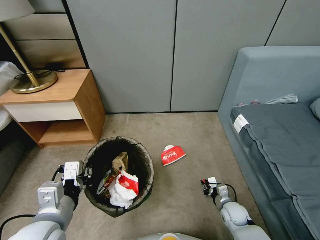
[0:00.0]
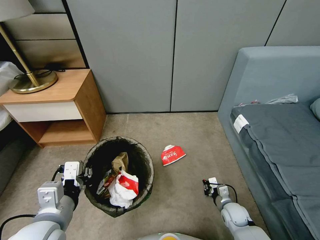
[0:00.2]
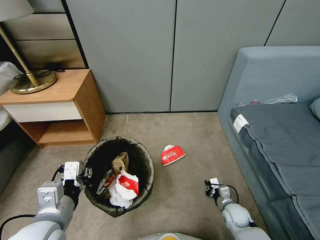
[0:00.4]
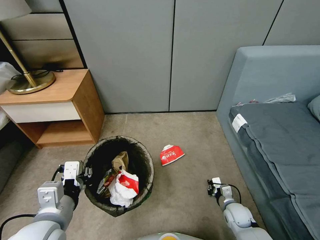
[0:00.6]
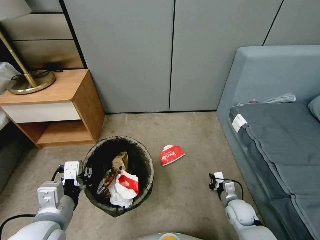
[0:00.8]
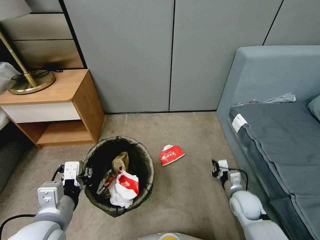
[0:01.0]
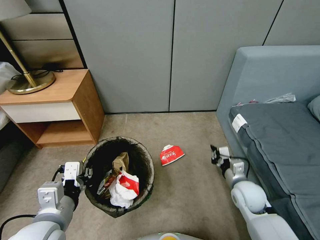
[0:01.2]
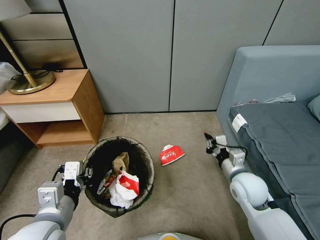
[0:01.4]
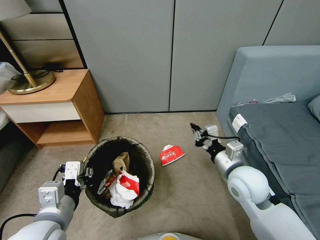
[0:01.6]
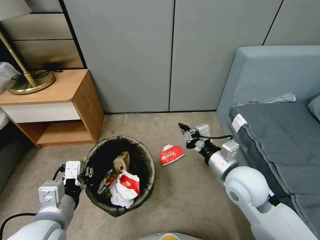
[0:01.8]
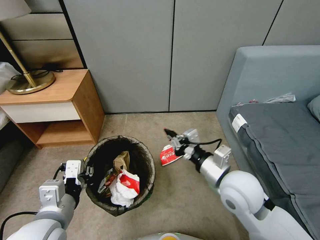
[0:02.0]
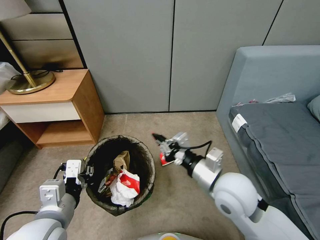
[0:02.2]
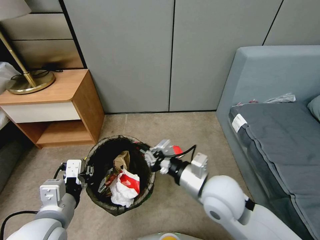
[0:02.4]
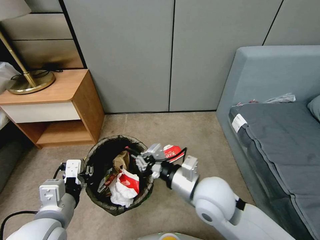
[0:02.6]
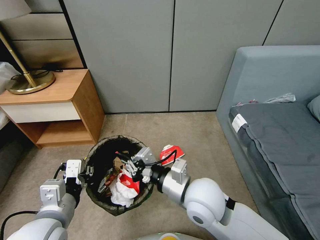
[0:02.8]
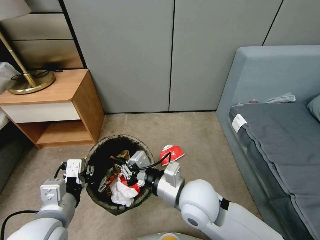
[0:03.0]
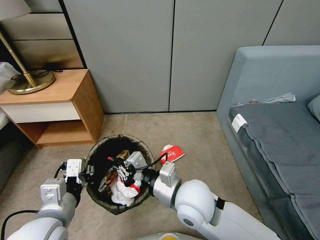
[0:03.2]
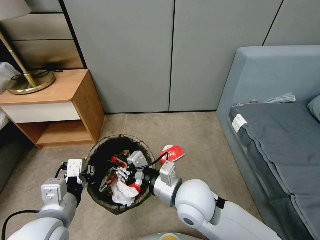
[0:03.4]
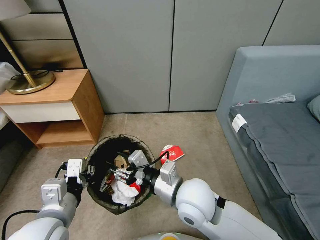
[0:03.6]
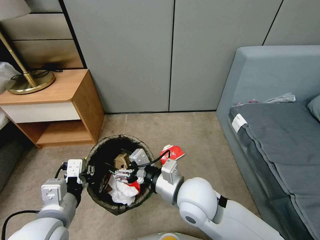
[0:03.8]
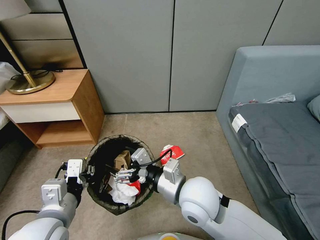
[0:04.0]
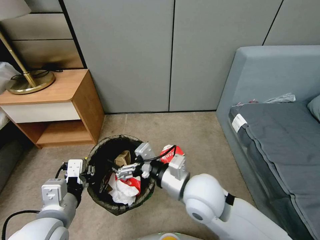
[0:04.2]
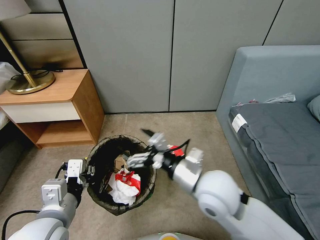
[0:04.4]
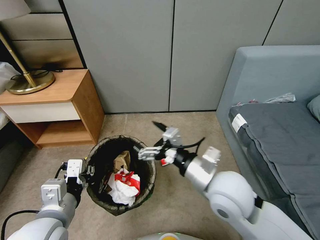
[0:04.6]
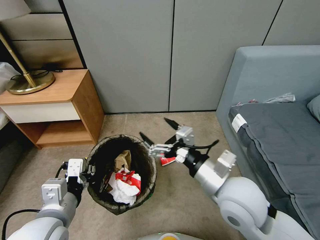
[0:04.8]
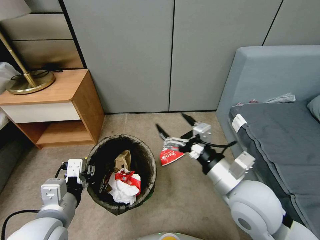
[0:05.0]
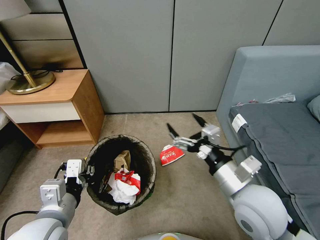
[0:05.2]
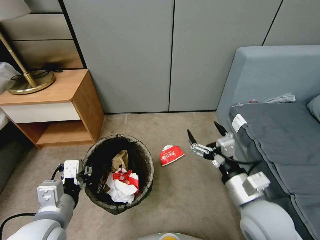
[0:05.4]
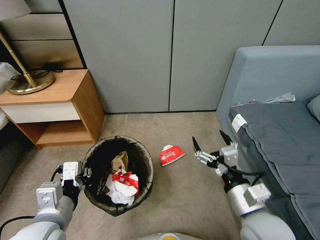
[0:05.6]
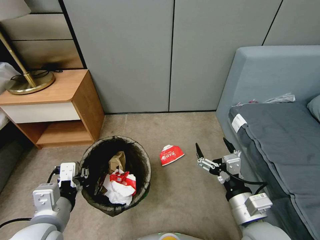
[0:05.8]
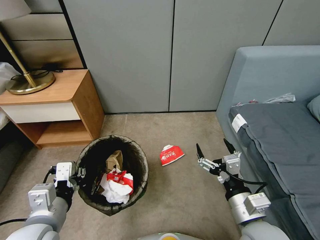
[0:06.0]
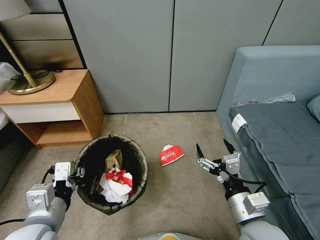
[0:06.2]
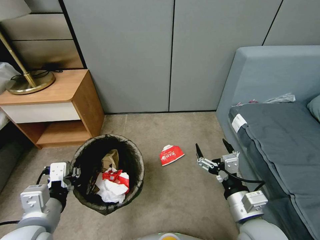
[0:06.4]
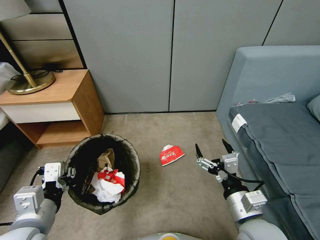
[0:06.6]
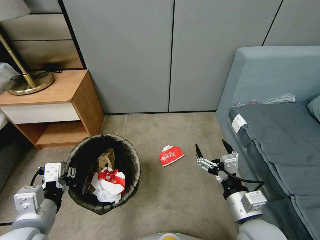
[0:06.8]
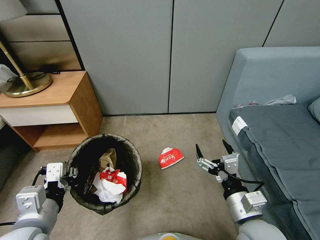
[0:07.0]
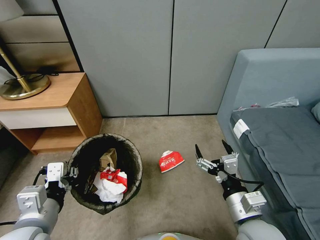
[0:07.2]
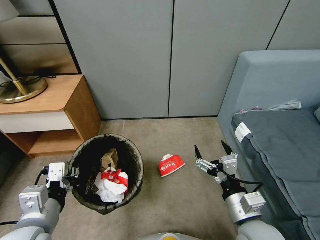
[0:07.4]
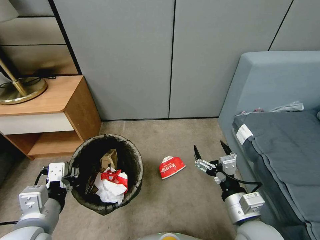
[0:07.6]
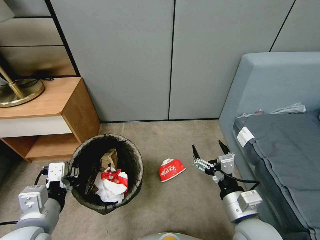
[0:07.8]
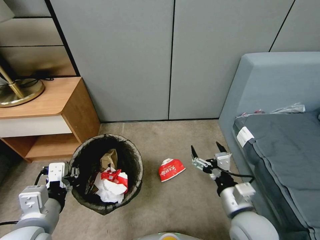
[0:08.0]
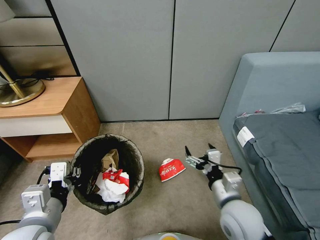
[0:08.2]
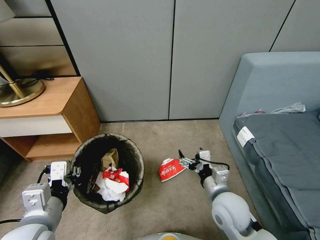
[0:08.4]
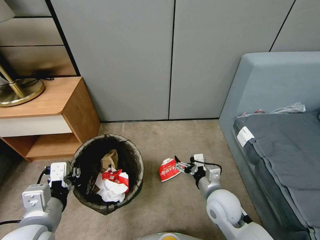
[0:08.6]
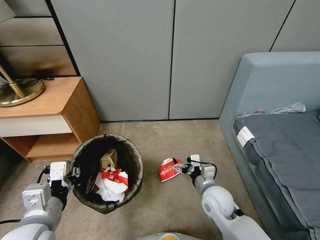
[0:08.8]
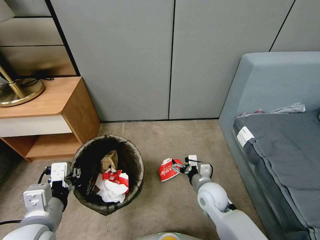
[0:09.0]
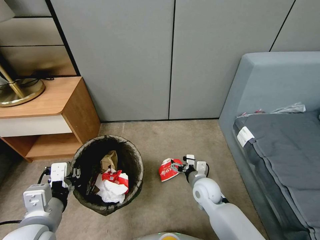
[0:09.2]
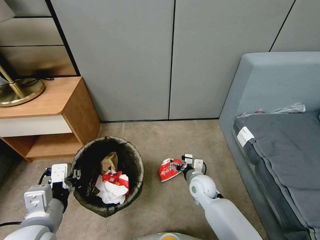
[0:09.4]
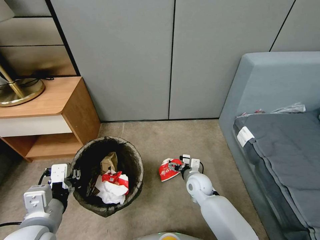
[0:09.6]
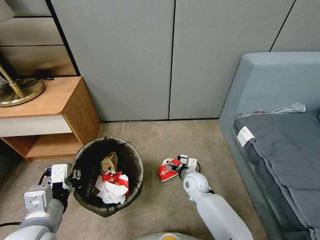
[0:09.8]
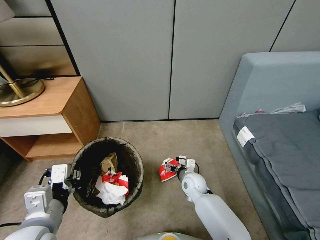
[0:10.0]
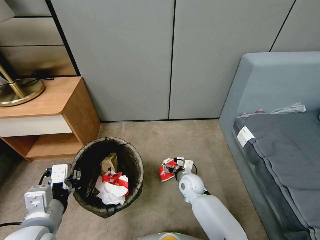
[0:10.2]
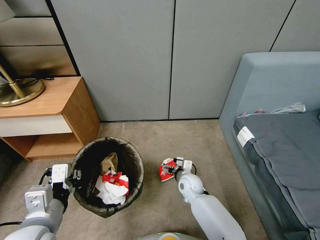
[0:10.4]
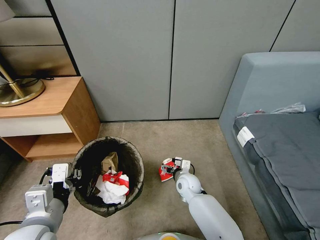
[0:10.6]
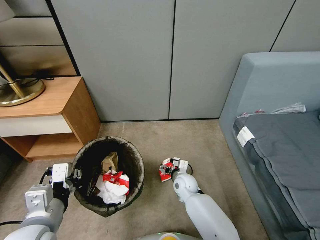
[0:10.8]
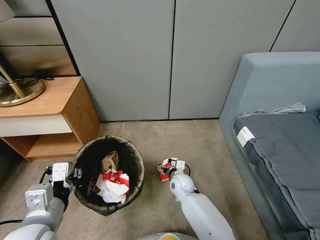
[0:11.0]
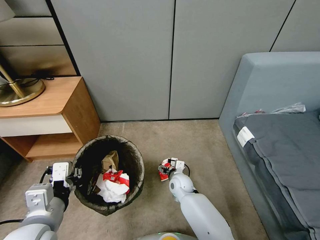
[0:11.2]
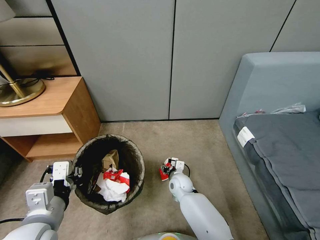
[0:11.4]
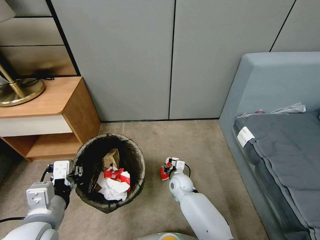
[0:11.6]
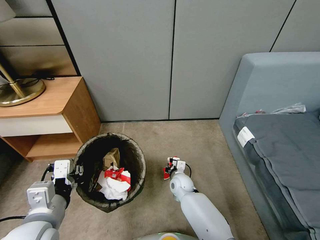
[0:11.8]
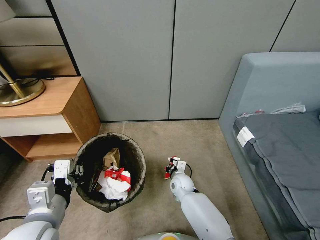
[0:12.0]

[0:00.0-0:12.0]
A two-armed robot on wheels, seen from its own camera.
Task of the whole recording: Pick up the trash bin, then pick up the garbage from the floor and place it into the trash bin.
0:00.0 to 0:01.6: The right gripper heads upward, covering roughly 30 cm.
0:01.6 to 0:03.0: The right gripper heads to the left, covering some 15 cm.
0:03.0 to 0:04.4: The right gripper opens.
0:04.4 to 0:06.0: The right gripper goes roughly 15 cm to the right, backward and downward.
0:07.6 to 0:09.0: The right gripper is displaced forward and downward by approximately 20 cm.
0:09.0 to 0:10.4: The right gripper heads downward, forward and to the left, covering some 10 cm.
0:10.4 to 0:12.0: The right gripper closes.

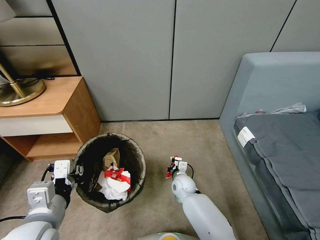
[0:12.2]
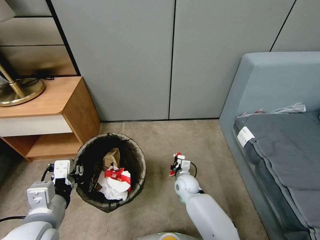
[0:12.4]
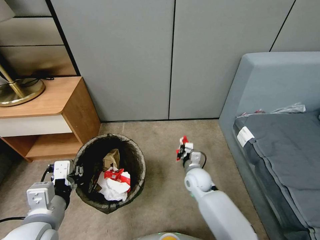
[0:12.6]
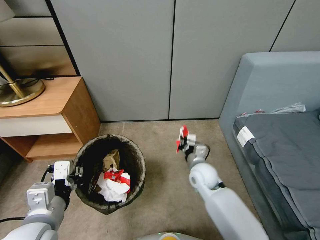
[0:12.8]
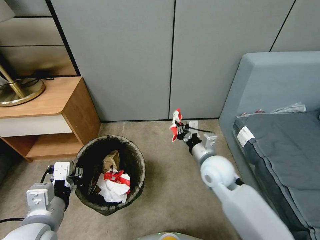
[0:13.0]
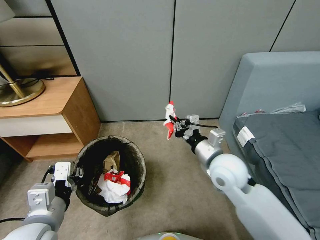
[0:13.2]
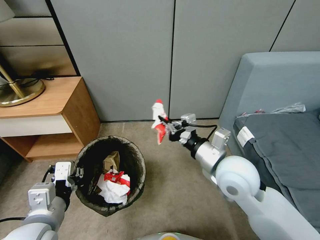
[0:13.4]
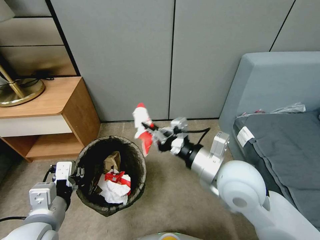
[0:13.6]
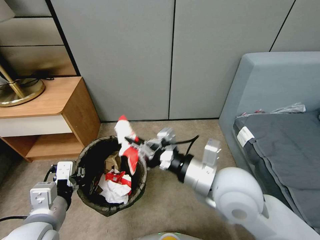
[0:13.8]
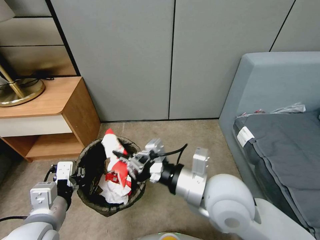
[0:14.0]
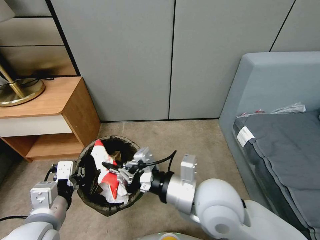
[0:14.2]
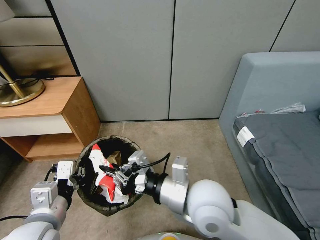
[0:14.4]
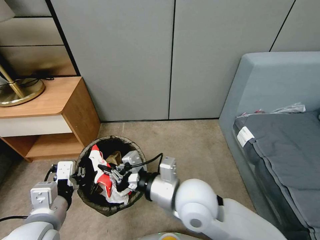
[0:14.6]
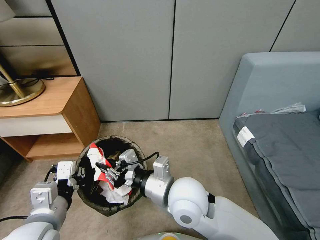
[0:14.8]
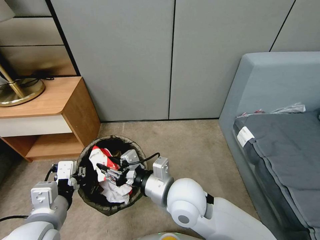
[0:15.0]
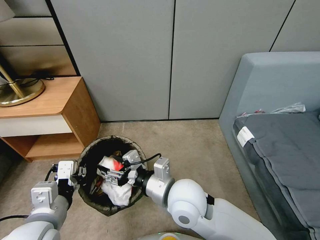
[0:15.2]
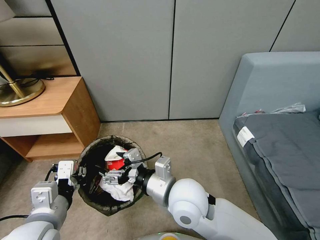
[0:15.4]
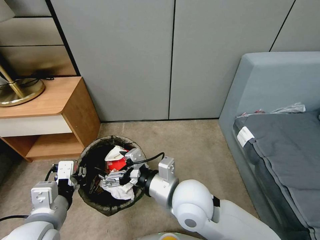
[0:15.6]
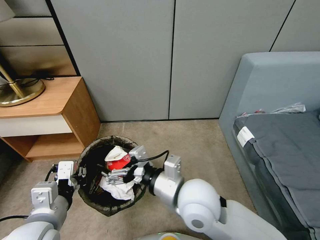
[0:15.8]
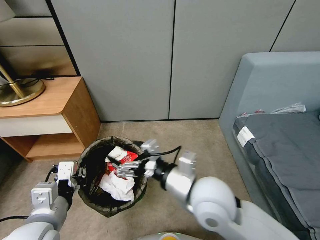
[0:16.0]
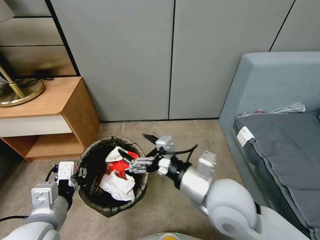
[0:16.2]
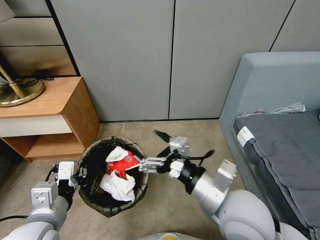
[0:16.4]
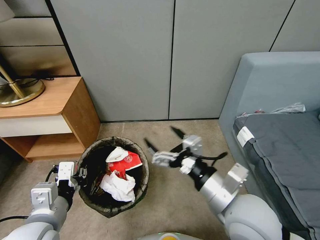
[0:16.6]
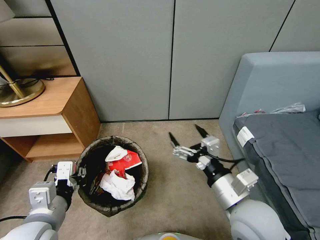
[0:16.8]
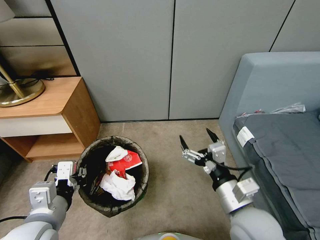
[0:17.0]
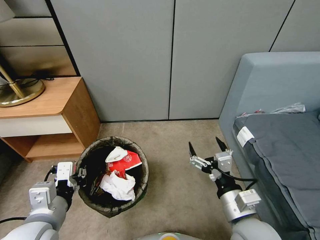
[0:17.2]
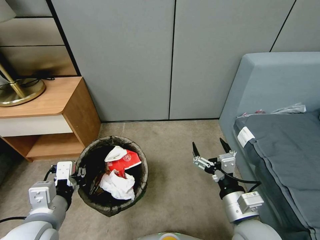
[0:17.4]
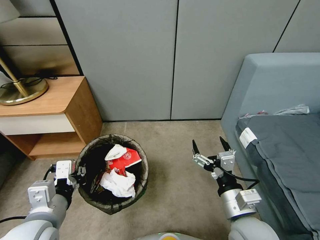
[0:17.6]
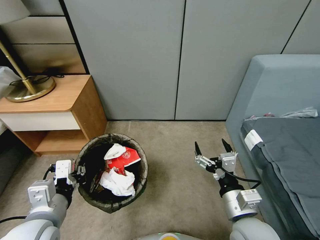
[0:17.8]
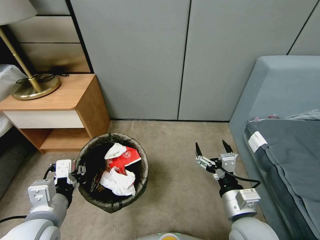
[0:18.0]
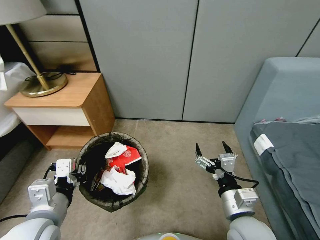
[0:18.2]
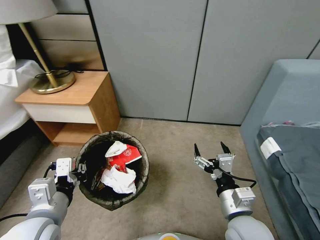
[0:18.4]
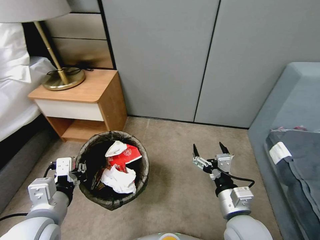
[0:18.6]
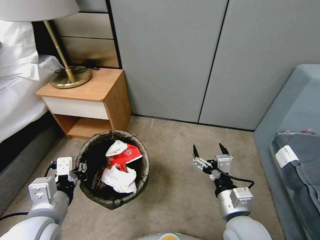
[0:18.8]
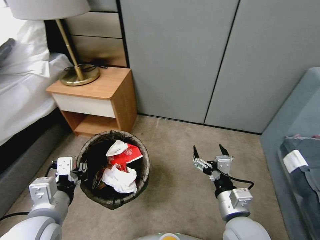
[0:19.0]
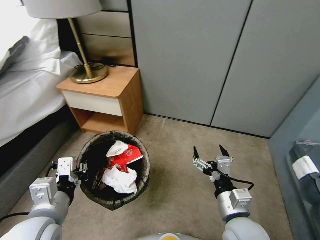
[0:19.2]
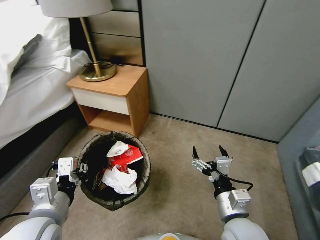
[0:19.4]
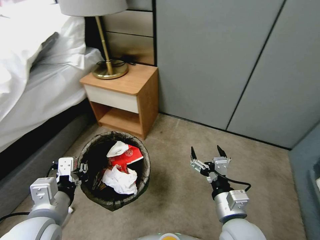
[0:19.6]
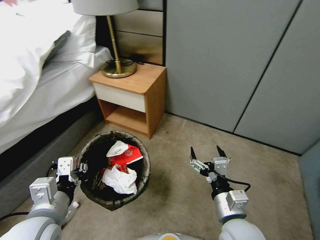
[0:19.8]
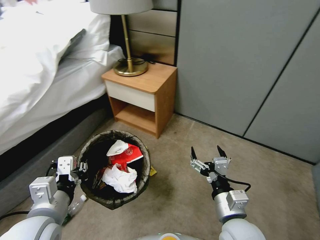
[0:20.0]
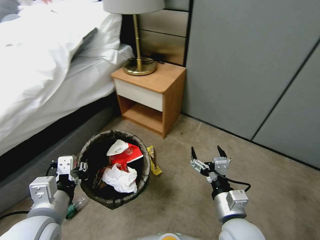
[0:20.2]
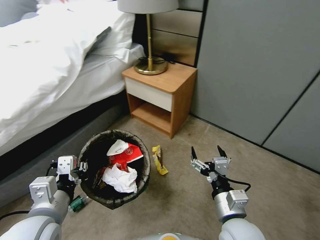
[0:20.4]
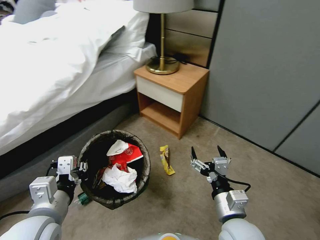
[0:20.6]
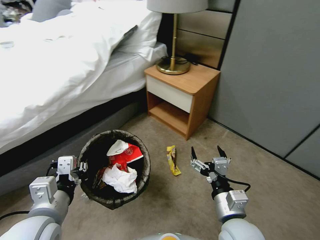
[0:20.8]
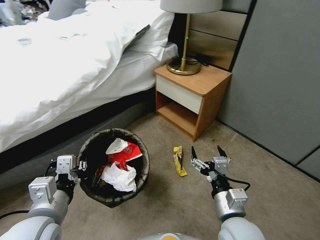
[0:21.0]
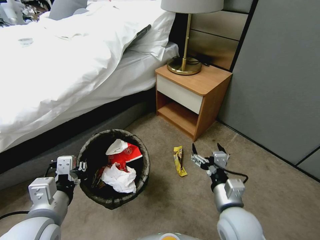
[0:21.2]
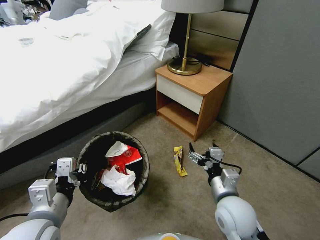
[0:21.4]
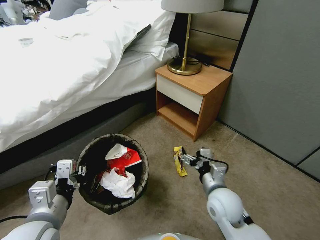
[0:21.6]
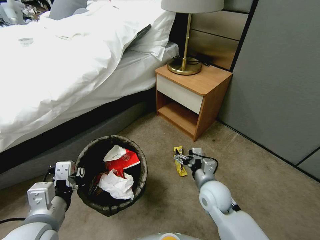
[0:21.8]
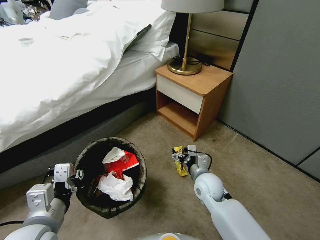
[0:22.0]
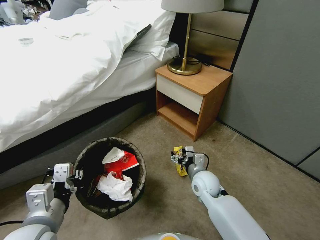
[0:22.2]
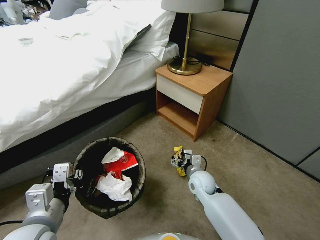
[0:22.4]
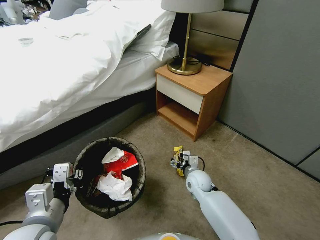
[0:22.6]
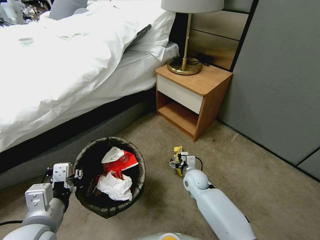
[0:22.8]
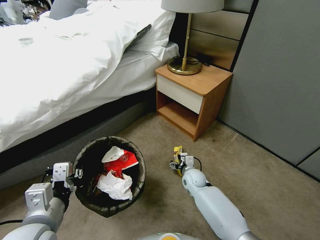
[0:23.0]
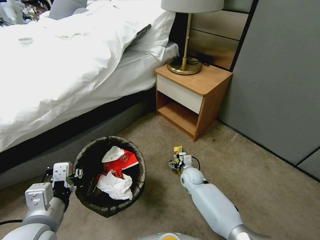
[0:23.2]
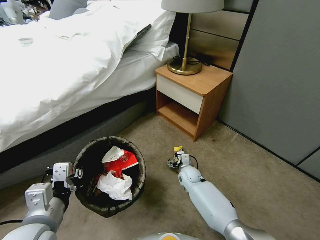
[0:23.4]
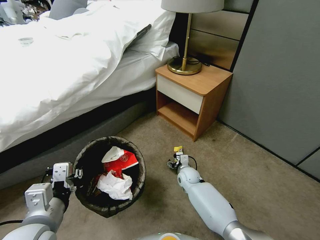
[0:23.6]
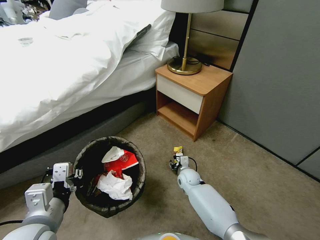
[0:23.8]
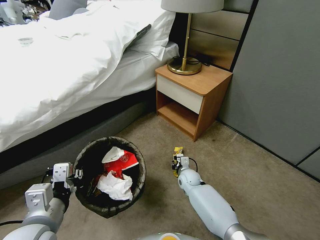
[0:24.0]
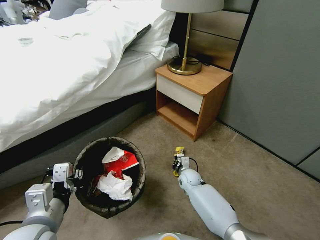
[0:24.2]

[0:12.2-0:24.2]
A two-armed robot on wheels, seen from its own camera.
Task of the whole recording: Pick up the trash bin, then pick up the garbage from the floor and place it into the trash bin.
0:12.2 to 0:13.8: The right gripper moves upward, about 35 cm.
0:13.8 to 0:15.2: The right gripper moves to the left and downward, about 10 cm, and opens up.
0:15.2 to 0:16.6: The right gripper heads to the right and backward, covering roughly 10 cm, and opens its fingers.
0:16.6 to 0:18.2: The right gripper travels downward by approximately 10 cm.
0:21.2 to 0:22.6: The right gripper goes approximately 25 cm forward and downward.
0:22.6 to 0:24.2: The right gripper travels downward by approximately 5 cm, and closes its fingers.
